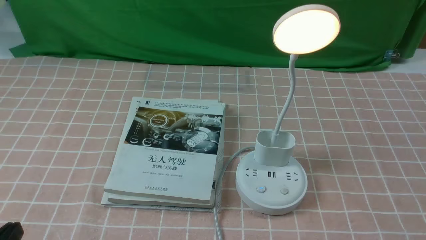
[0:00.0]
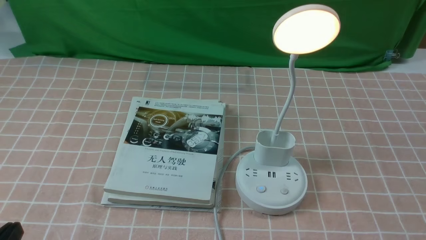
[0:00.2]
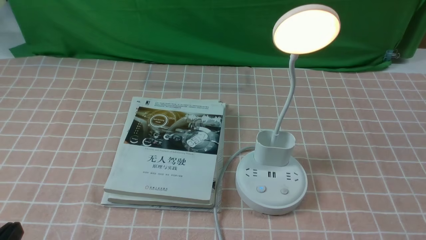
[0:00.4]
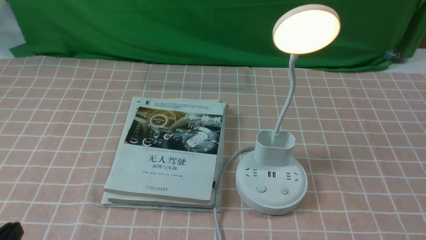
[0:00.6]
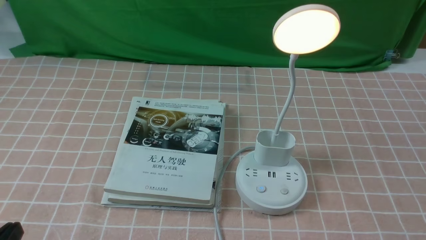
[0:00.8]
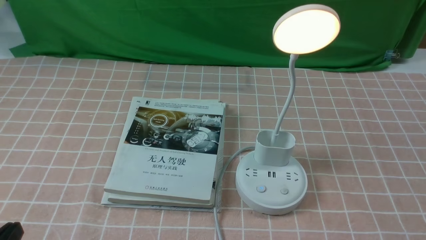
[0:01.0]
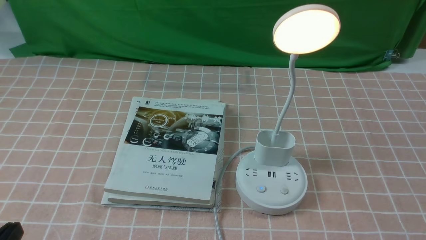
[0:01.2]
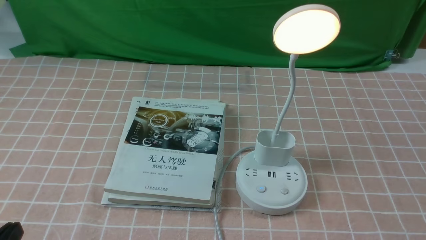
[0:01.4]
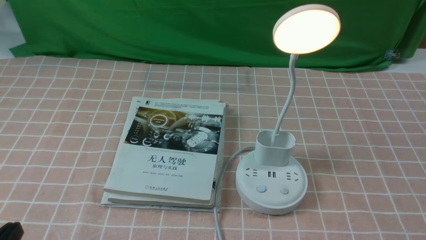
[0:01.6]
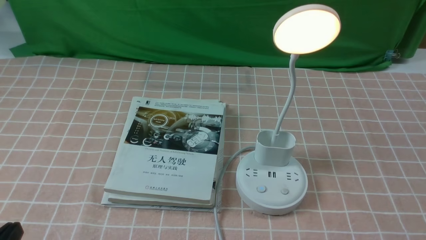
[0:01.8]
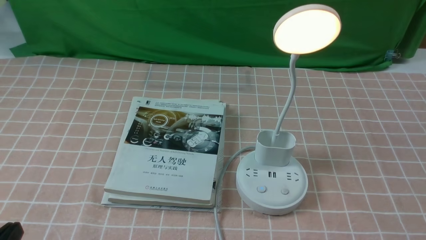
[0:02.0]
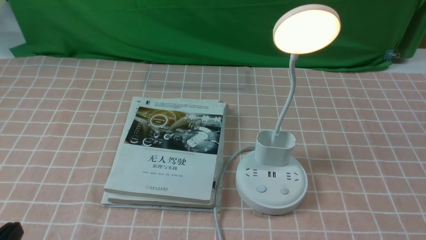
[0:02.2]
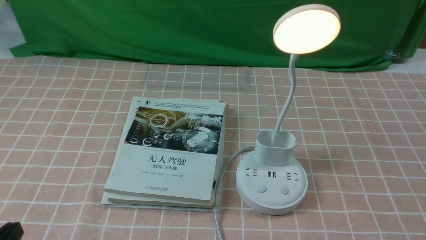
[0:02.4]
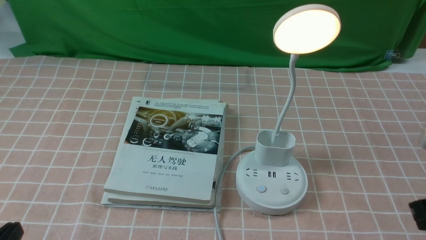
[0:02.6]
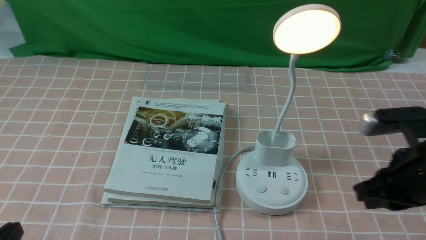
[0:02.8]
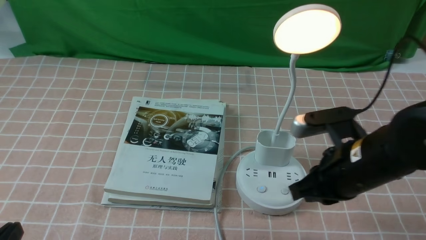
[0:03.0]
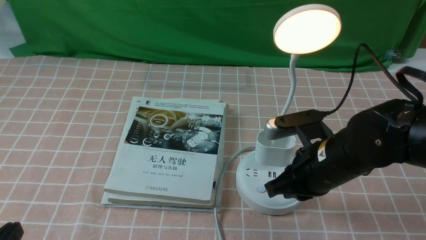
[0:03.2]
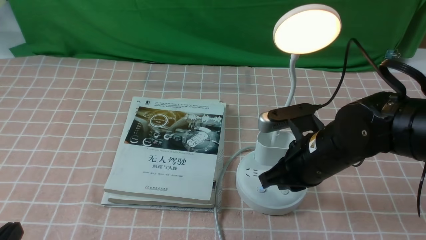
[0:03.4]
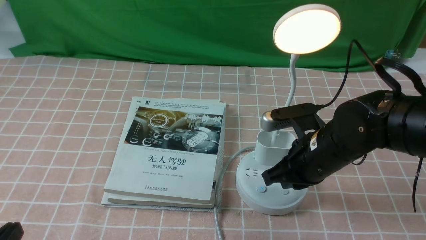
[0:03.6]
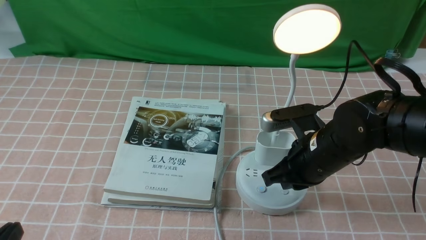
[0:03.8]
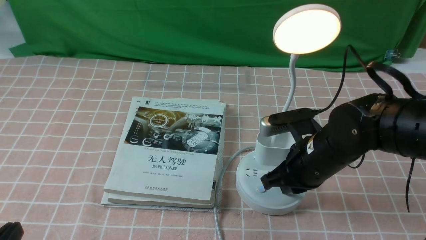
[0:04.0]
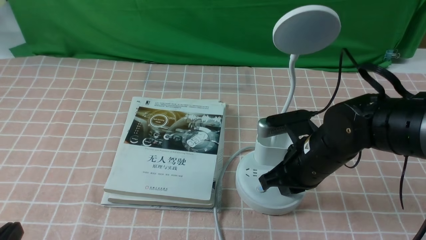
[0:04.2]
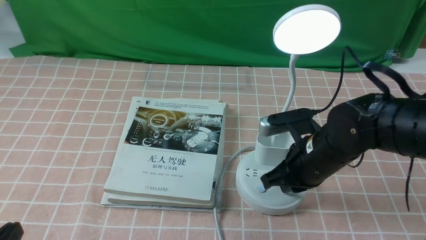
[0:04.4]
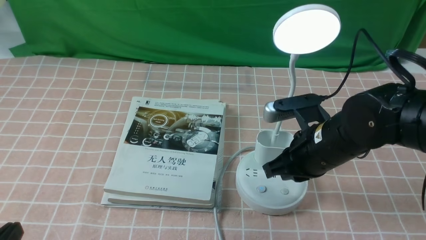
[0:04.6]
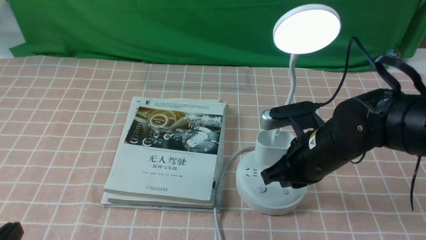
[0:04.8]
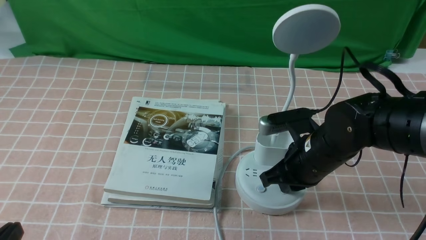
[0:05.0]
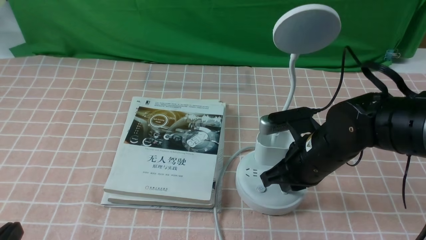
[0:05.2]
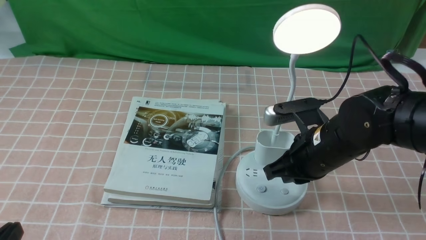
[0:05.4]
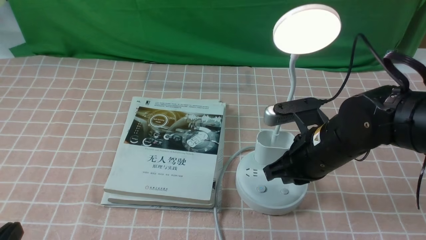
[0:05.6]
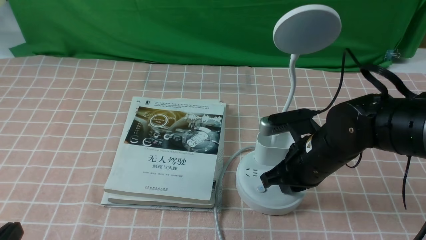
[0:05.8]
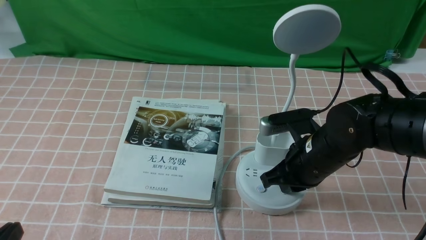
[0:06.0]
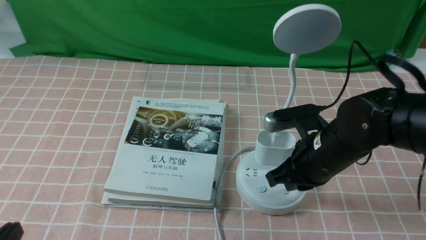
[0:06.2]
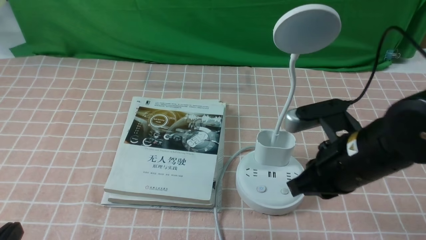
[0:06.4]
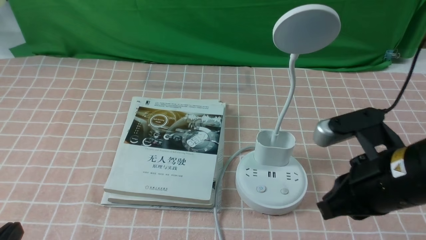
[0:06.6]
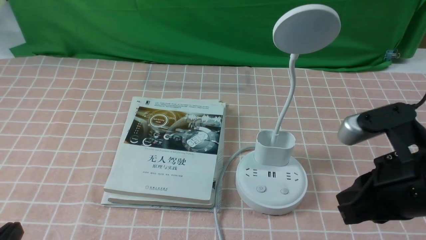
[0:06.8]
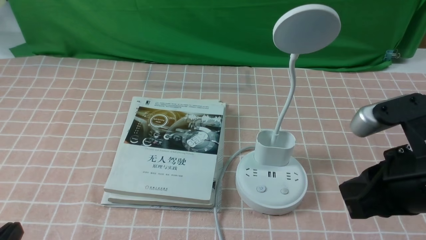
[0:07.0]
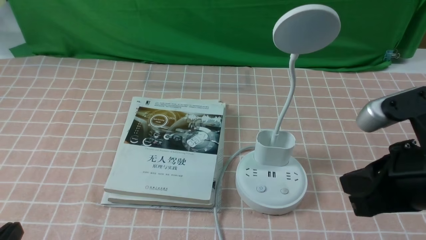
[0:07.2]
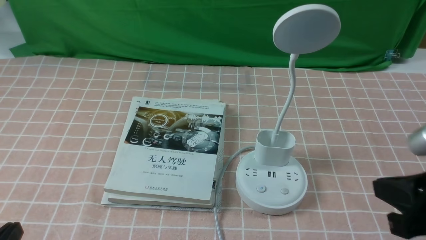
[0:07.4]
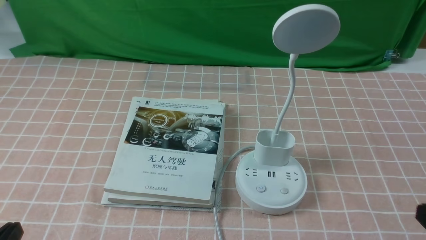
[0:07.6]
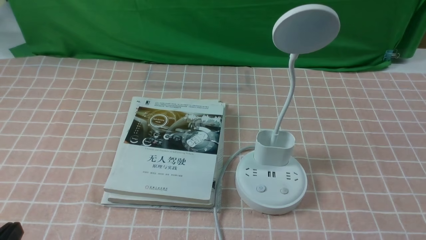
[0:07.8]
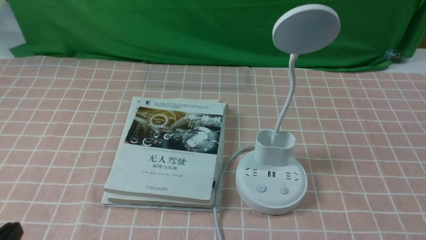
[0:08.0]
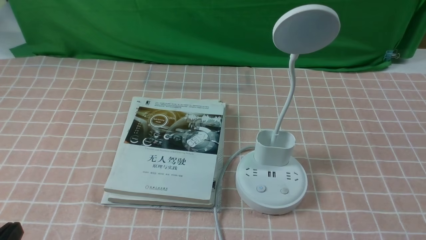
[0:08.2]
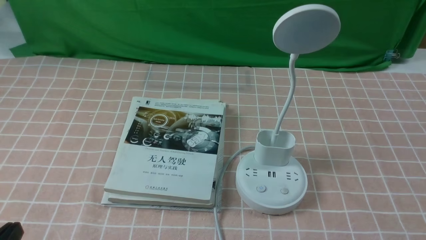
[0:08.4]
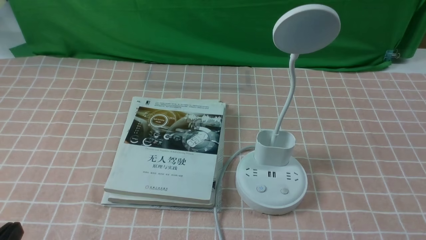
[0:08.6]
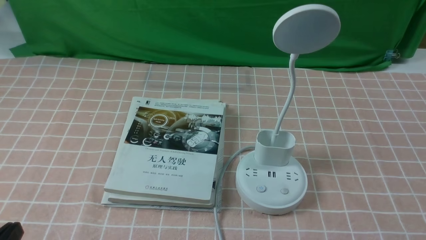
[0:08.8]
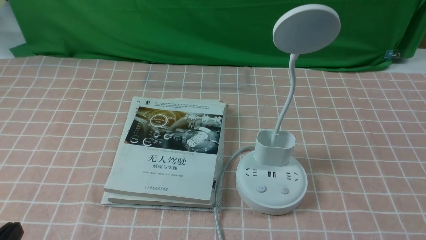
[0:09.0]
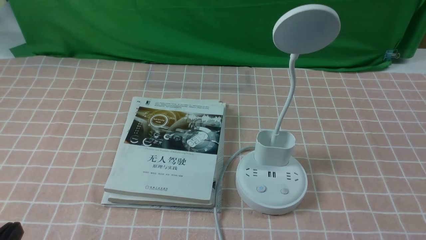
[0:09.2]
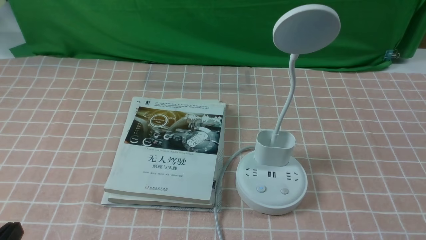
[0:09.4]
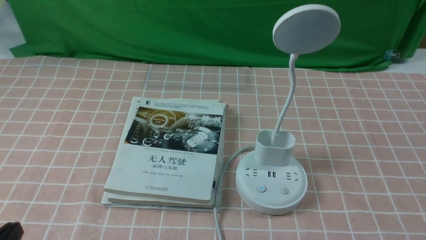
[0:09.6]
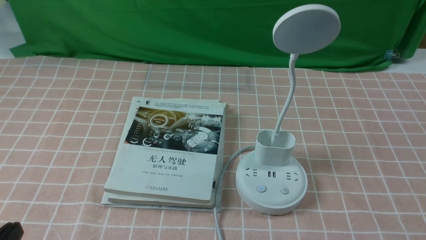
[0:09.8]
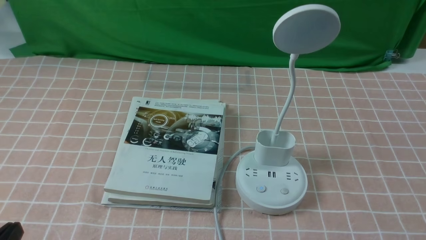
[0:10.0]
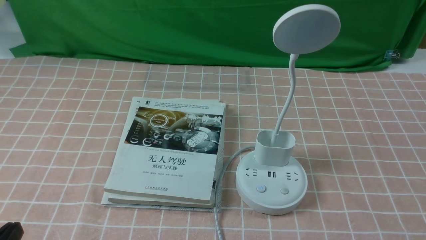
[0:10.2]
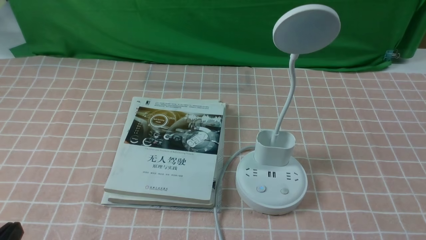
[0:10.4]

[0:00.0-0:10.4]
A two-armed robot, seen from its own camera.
Task of the whole recording: turn off the table lamp on the pink coffee tablecloth by hand.
Step, 0:00.0 to 0:06.2: use the right arm to press the button switch on the lamp holder.
0:01.4 to 0:03.0: The right gripper is displaced forward and to the left by approximately 20 cm, and closes its fingers.
0:03.0 to 0:04.4: The right gripper heads to the left, downward and forward, covering roughly 10 cm.
0:04.4 to 0:06.0: Both grippers stay put.
0:06.0 to 0:07.4: The right gripper moves backward, upward and to the right, roughly 20 cm.
0:07.4 to 0:09.0: The right gripper travels downward, backward and to the right by approximately 15 cm.
